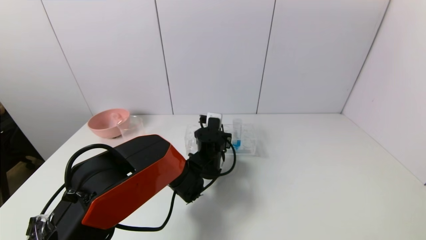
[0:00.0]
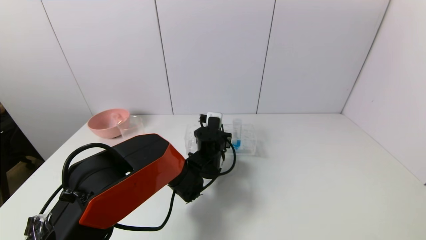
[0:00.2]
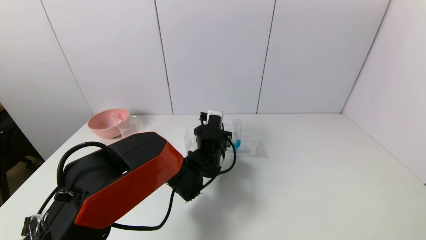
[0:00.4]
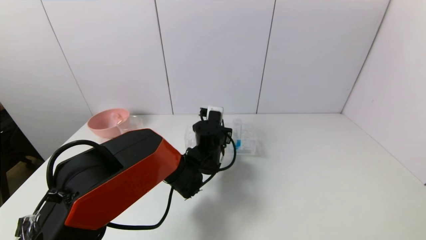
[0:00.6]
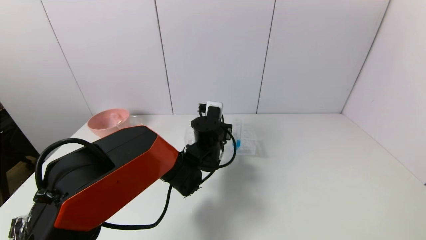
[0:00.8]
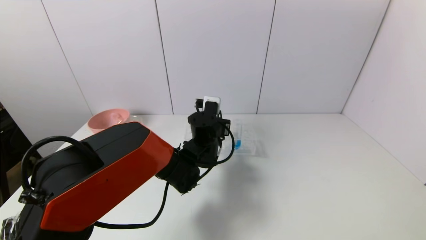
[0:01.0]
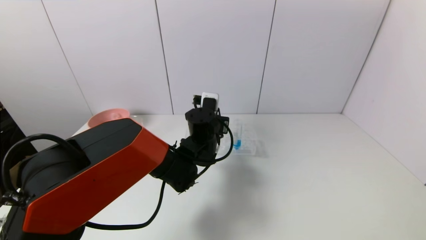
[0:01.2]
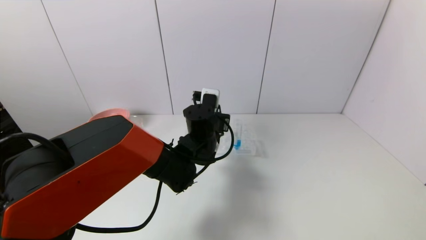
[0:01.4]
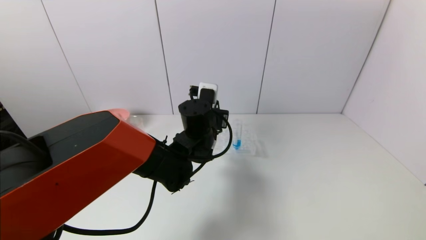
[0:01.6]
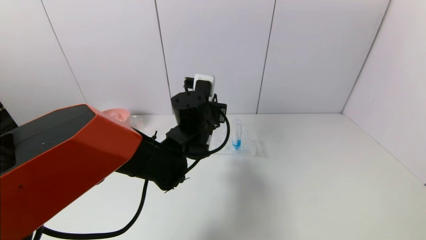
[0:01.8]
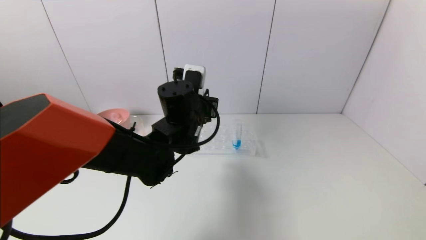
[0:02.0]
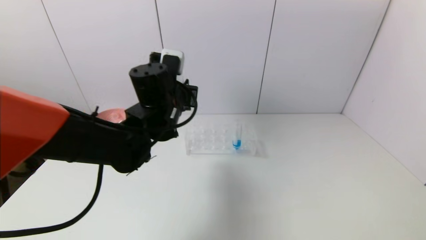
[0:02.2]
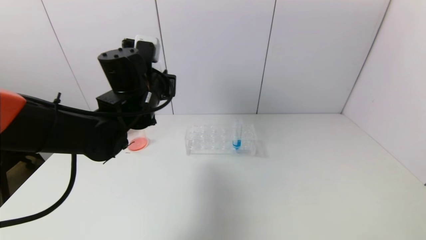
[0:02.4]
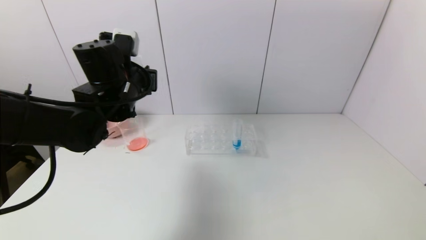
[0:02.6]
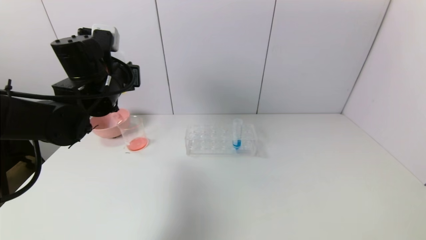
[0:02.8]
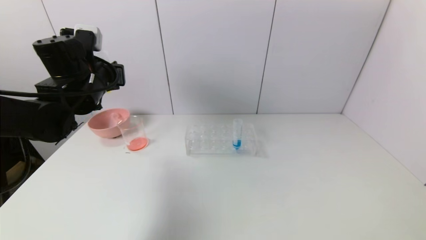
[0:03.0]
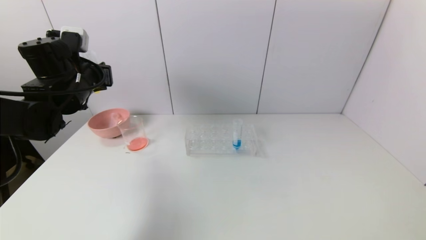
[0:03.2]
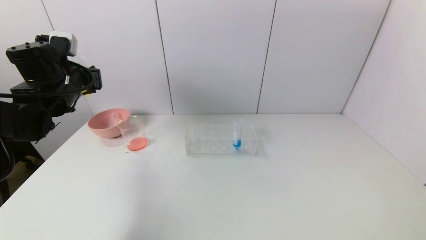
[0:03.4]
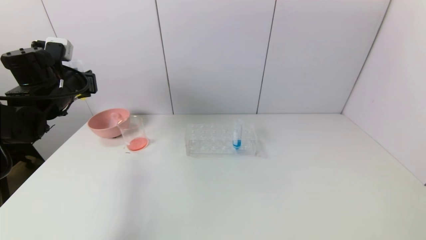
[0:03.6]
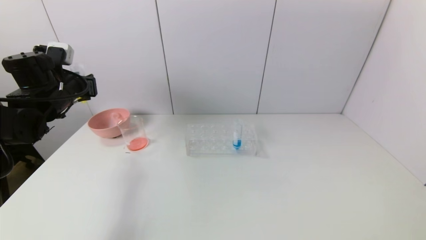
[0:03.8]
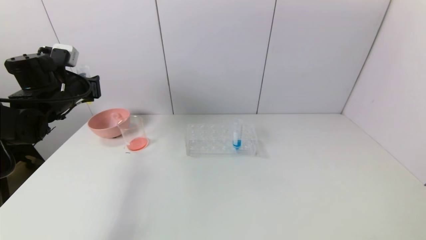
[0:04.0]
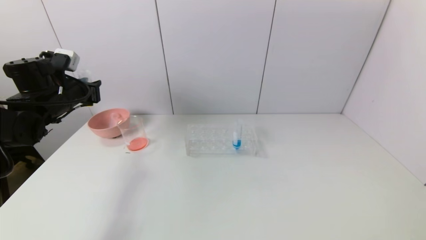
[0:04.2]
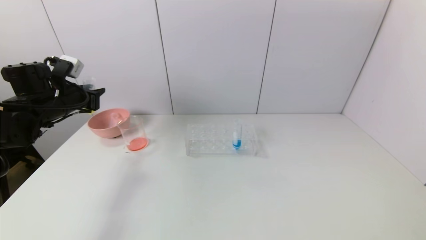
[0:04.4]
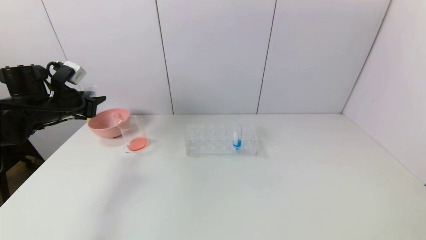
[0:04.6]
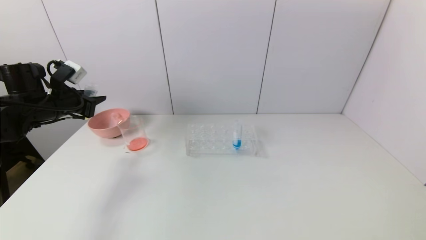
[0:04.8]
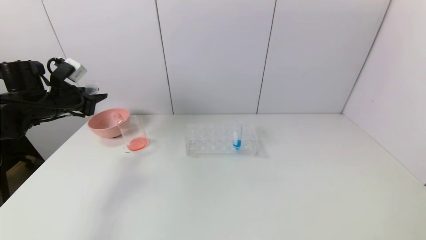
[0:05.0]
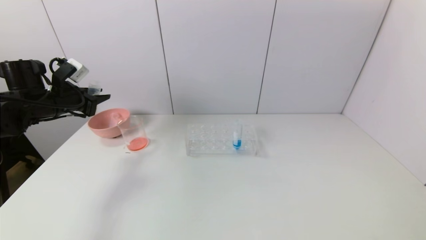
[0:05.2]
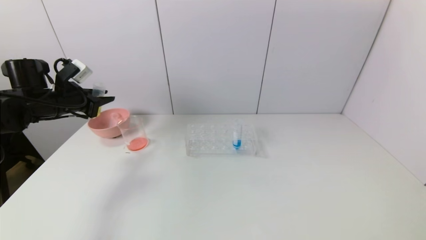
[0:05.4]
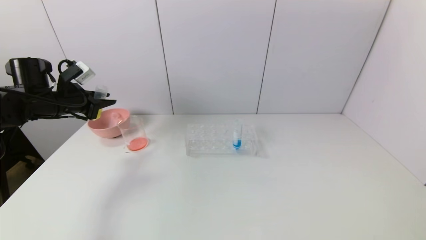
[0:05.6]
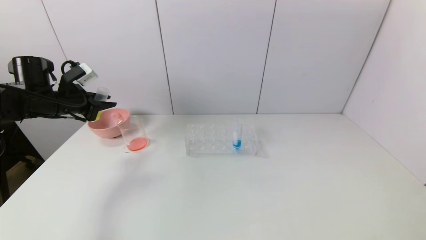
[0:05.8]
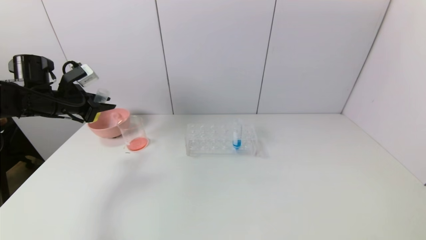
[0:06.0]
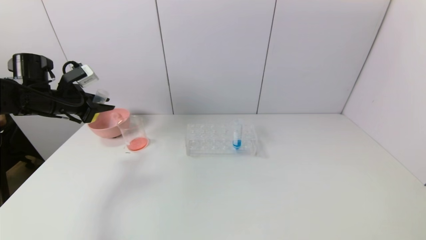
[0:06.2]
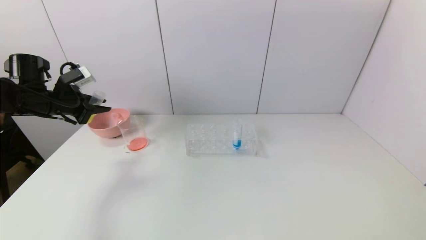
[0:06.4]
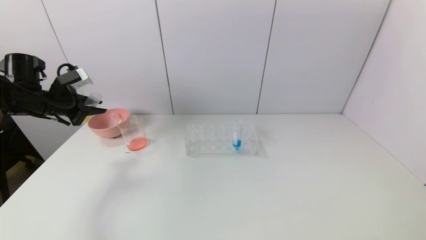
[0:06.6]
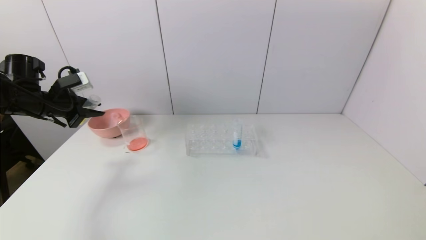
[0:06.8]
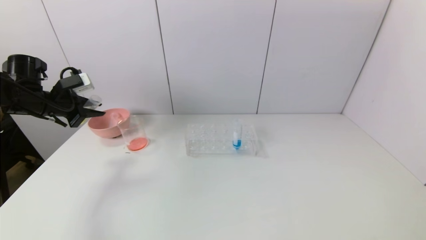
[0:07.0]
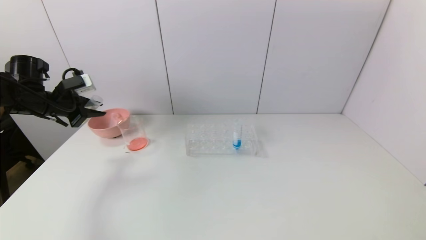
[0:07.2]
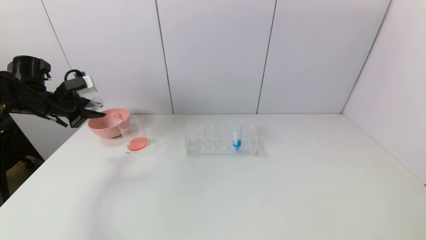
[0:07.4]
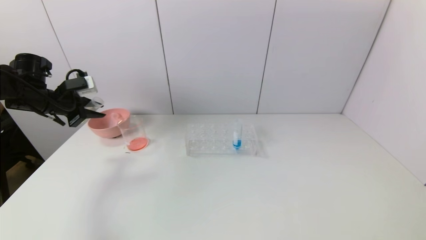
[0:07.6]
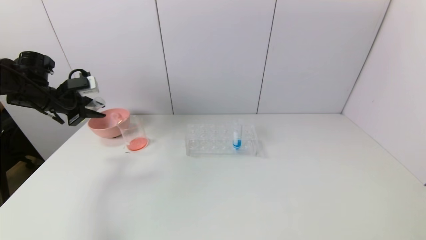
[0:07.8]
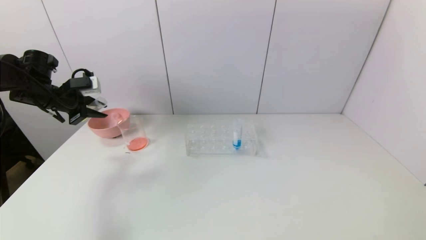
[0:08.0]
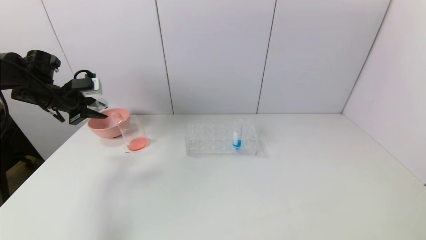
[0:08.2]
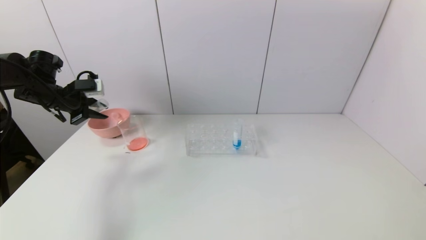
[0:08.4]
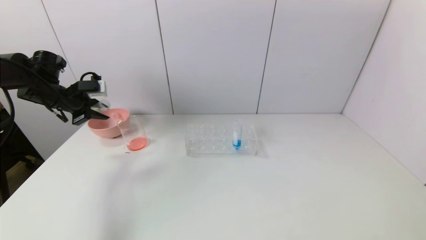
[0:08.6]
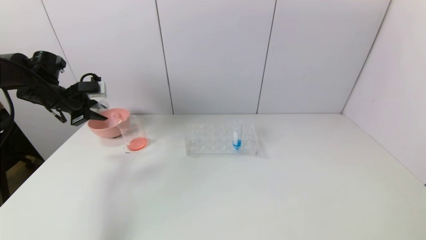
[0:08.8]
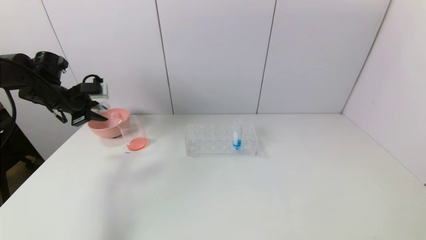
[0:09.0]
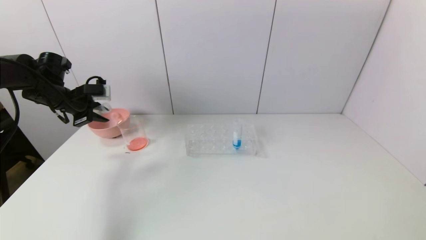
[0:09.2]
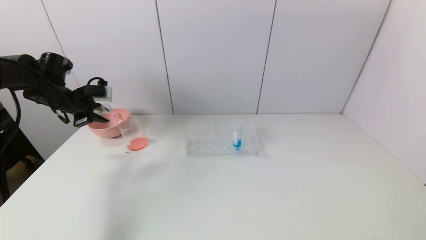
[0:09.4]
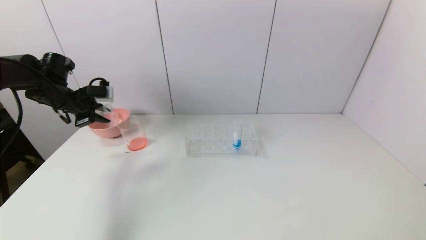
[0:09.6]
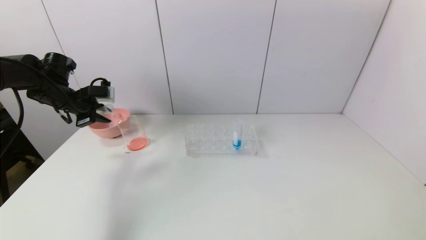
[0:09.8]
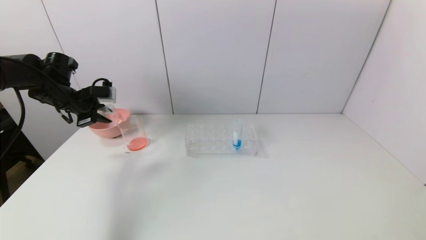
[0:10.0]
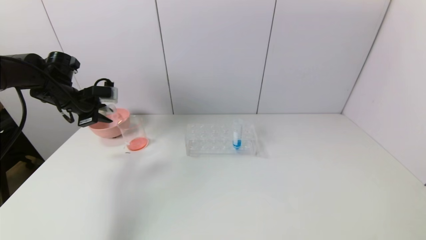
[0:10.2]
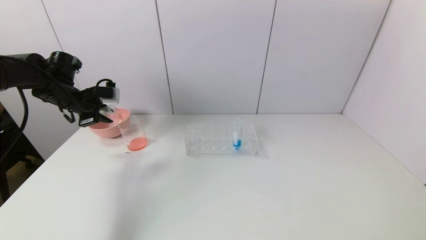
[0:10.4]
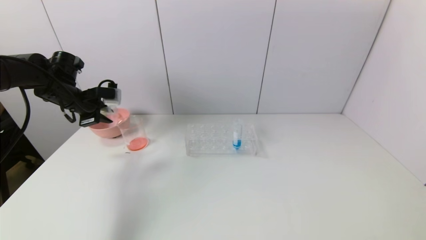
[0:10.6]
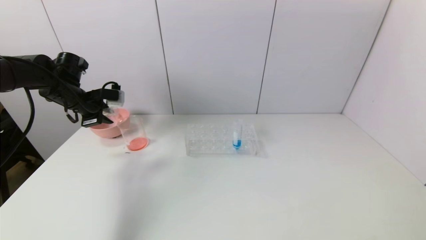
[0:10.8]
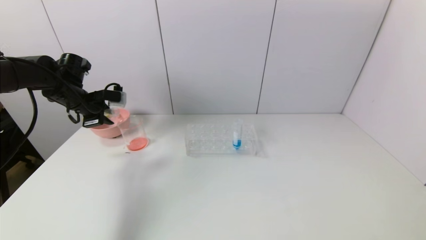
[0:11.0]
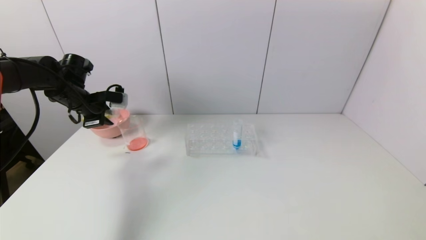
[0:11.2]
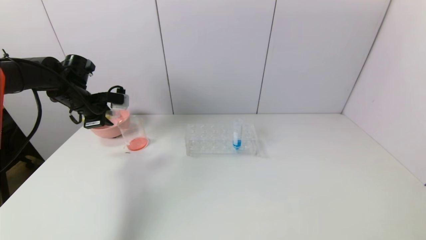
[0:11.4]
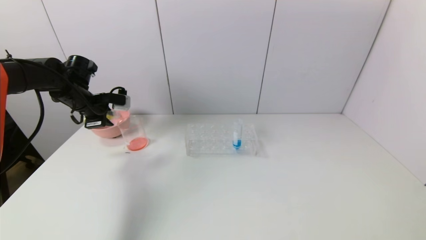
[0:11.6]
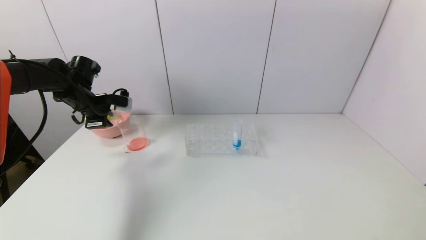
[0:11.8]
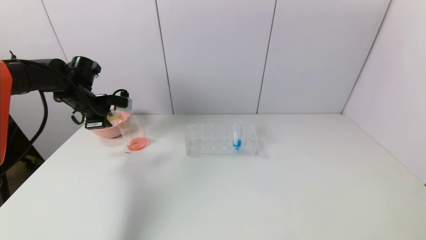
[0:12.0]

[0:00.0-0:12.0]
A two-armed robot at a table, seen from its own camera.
Task of the whole recording: pick up the test tube with yellow pigment and the test tube with red pigment by grippers and pour them into the beaker.
0:00.0 to 0:01.6: The left gripper heads upward, covering some 10 cm.
0:01.6 to 0:03.0: The left gripper heads to the left and upward, covering approximately 25 cm.
0:03.0 to 0:04.4: The left gripper shifts about 10 cm to the left and downward.
0:07.6 to 0:10.4: There are only small adjustments of the grippers.
0:10.4 to 0:12.0: The grippers make only small movements.

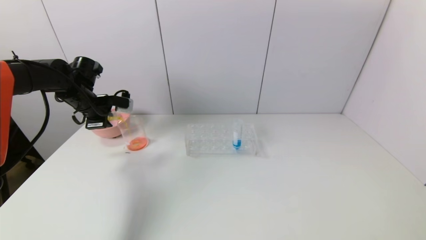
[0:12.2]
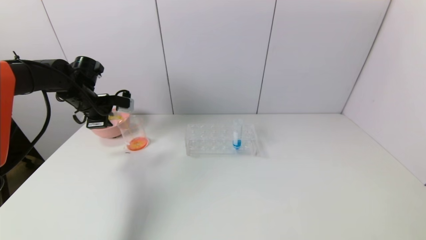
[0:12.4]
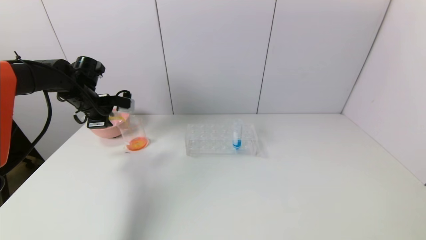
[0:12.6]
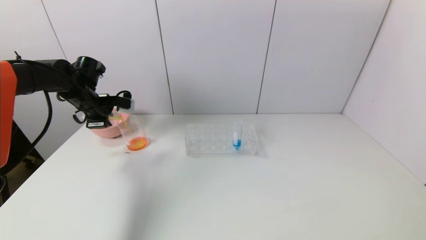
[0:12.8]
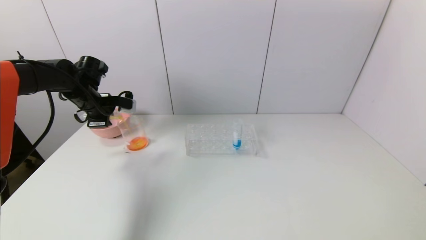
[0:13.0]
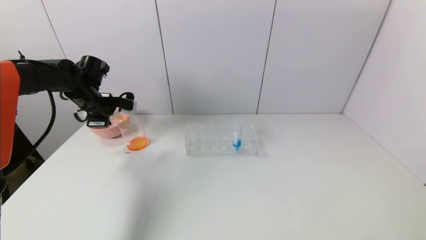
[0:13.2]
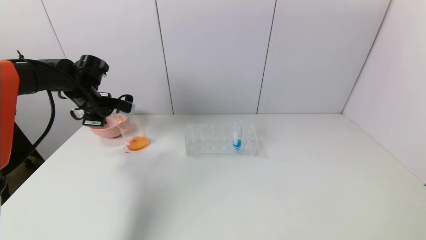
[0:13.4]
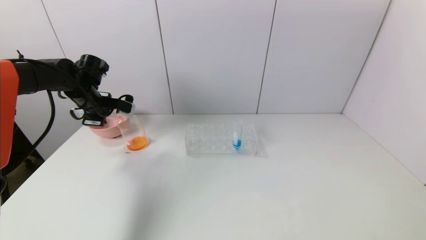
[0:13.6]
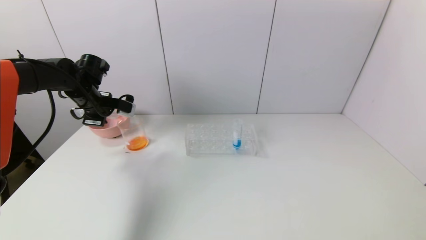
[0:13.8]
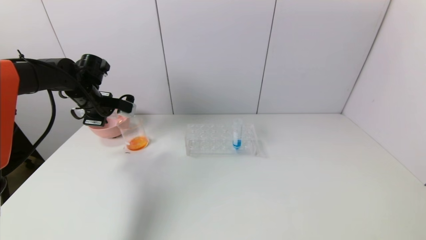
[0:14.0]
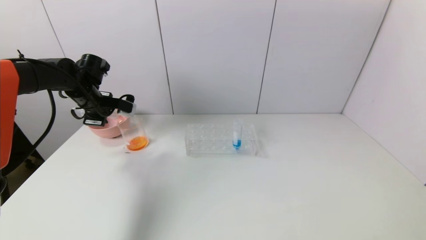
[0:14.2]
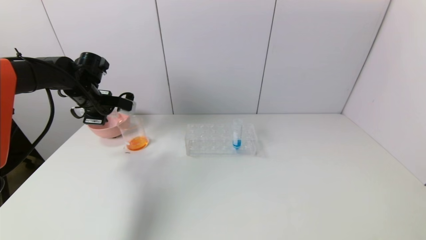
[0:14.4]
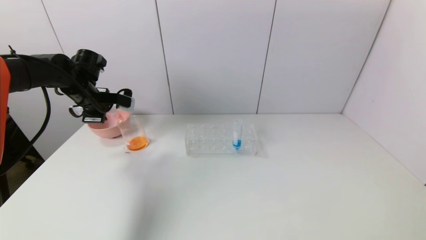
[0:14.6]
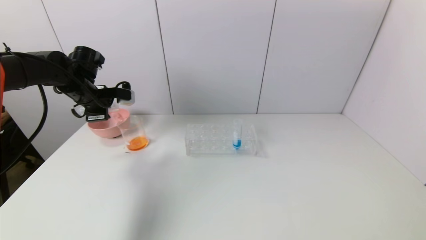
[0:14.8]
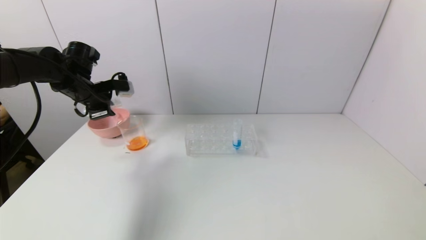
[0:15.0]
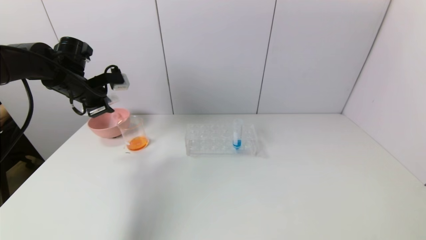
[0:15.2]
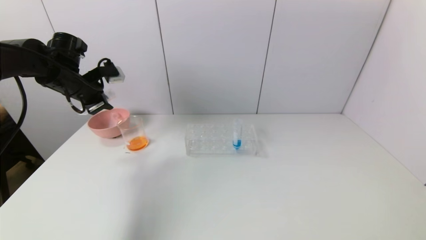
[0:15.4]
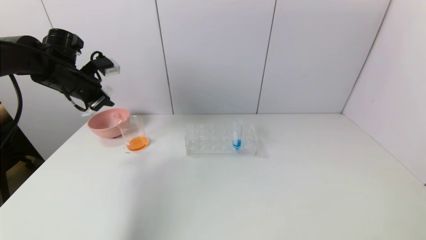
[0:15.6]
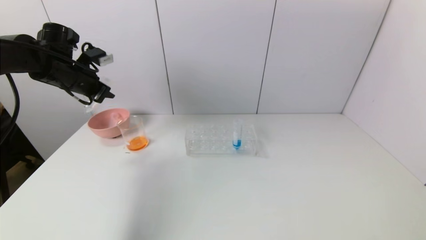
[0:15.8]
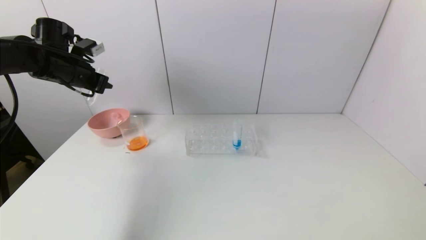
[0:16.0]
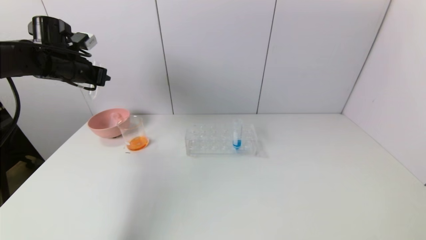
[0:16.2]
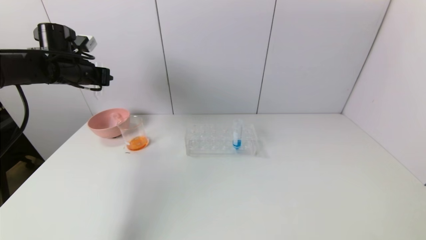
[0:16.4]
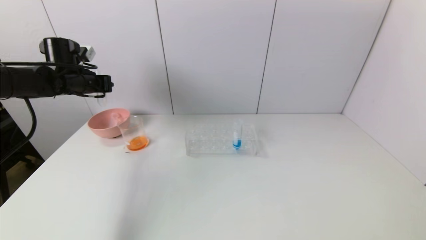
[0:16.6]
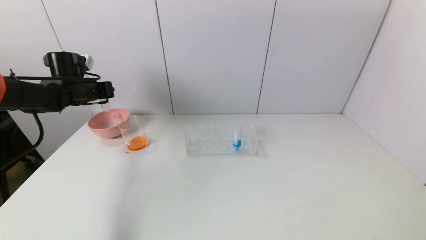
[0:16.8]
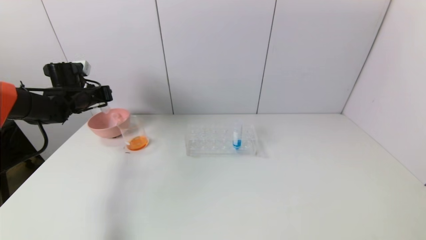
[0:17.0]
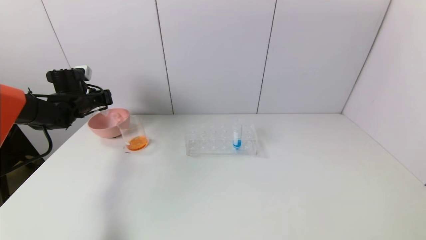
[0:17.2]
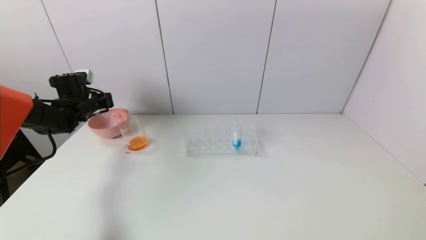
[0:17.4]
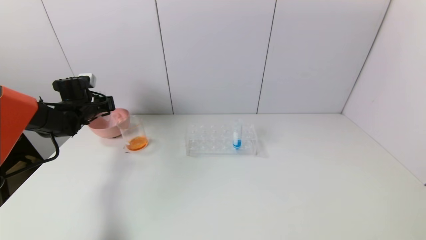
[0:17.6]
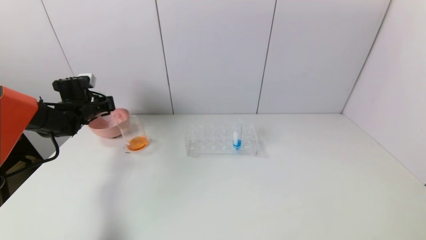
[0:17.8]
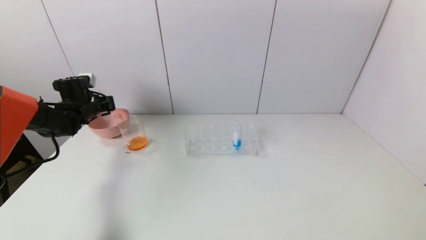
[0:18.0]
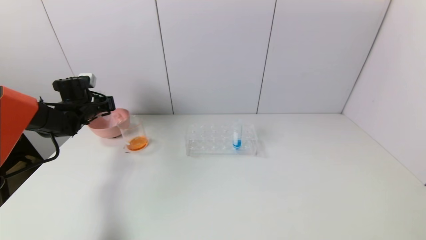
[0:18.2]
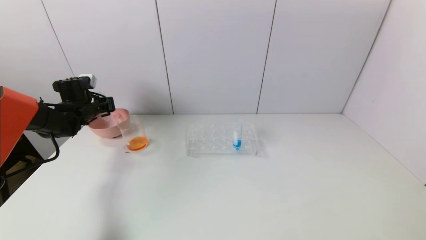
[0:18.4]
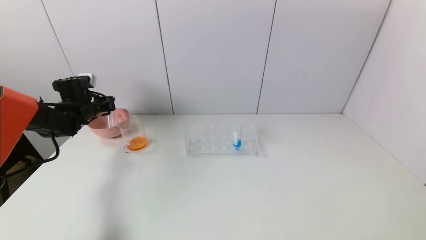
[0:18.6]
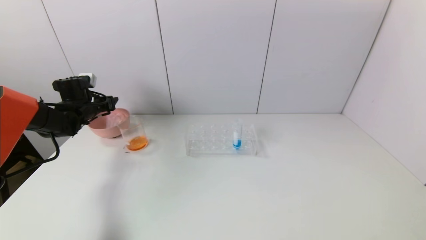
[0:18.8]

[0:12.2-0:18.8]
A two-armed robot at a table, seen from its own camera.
Task of the whole recording: pick up the test tube with yellow pigment and the test tube with red pigment by grippers and pour them into the beaker.
Step, 0:12.2 to 0:14.2: Pour the yellow reagent into the graduated cylinder with the left gripper.
0:12.2 to 0:13.8: The grippers make only small movements.
0:13.8 to 0:15.4: The left gripper moves some 5 cm.
0:15.4 to 0:17.2: The left gripper shifts about 10 cm downward and forward.
0:17.2 to 0:18.8: The left gripper opens.
